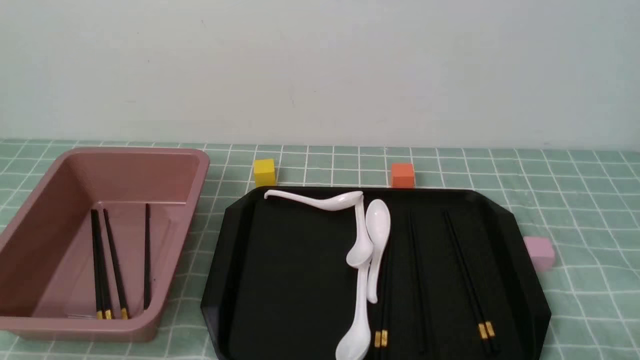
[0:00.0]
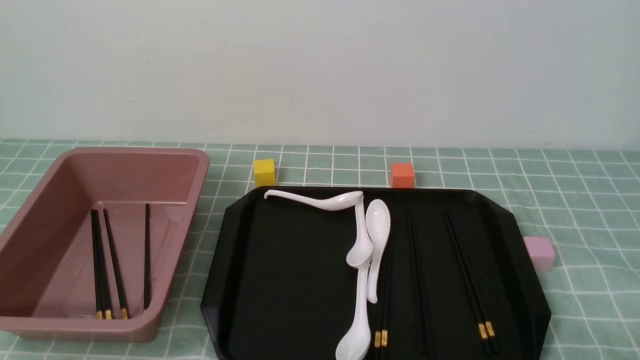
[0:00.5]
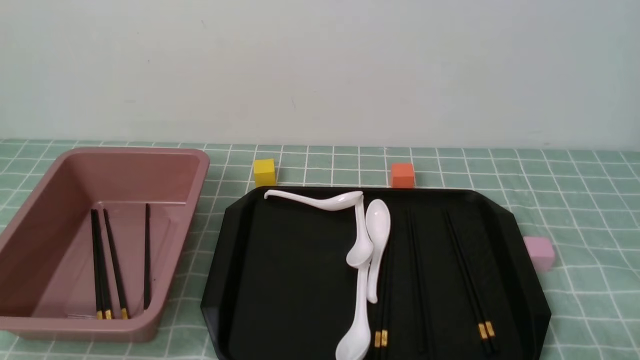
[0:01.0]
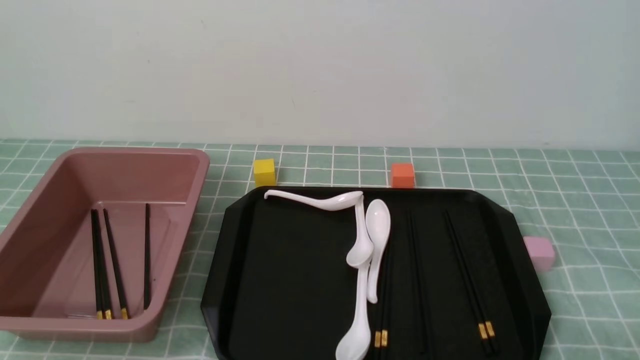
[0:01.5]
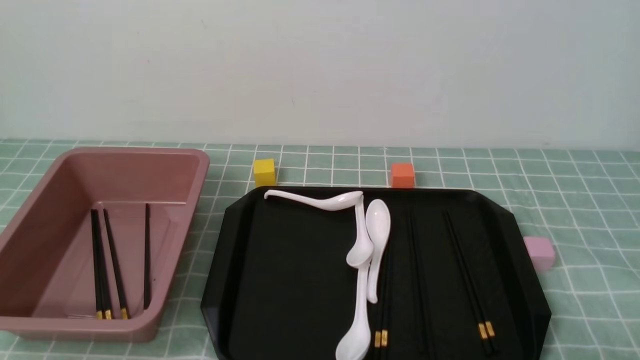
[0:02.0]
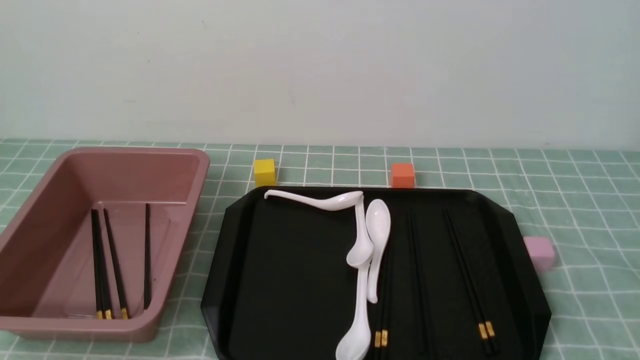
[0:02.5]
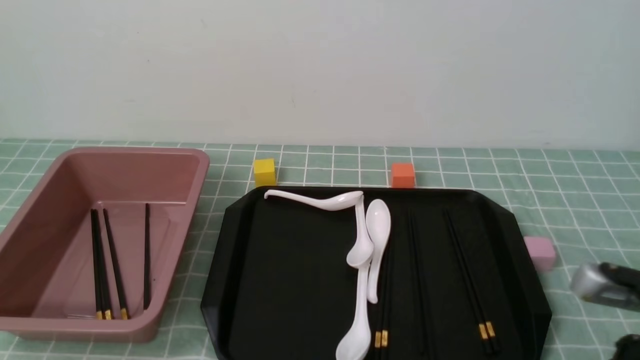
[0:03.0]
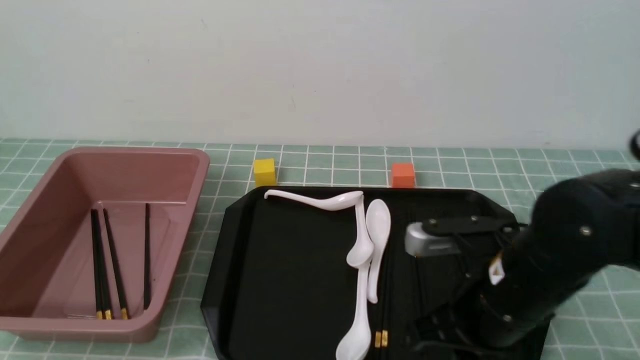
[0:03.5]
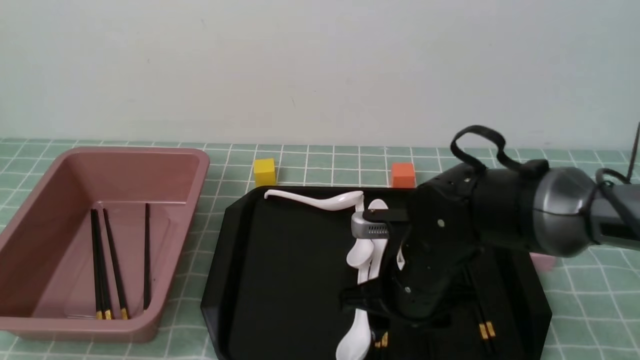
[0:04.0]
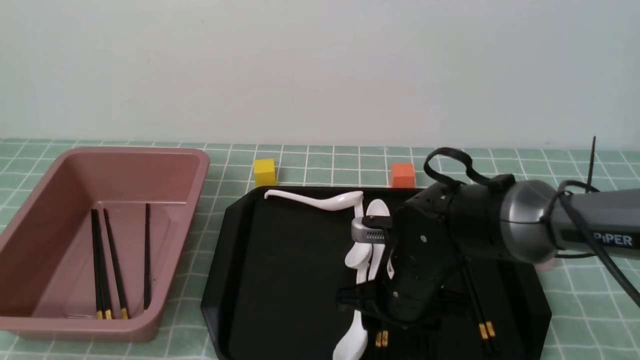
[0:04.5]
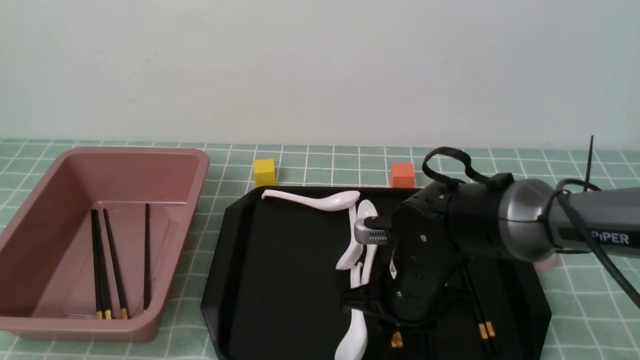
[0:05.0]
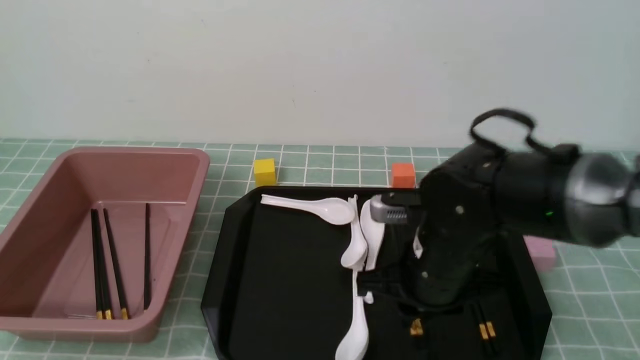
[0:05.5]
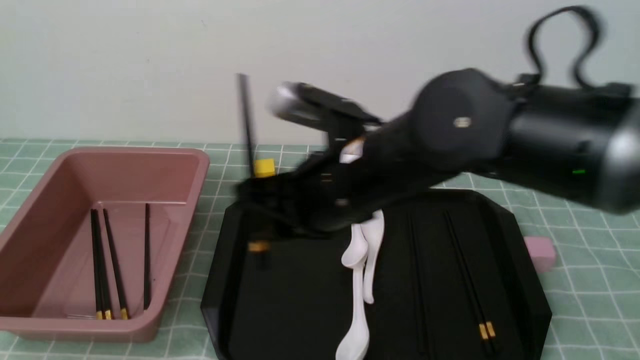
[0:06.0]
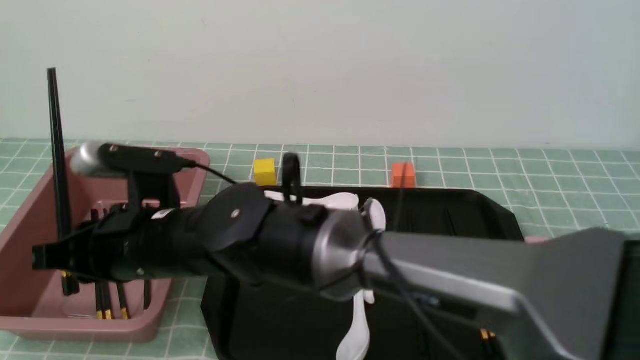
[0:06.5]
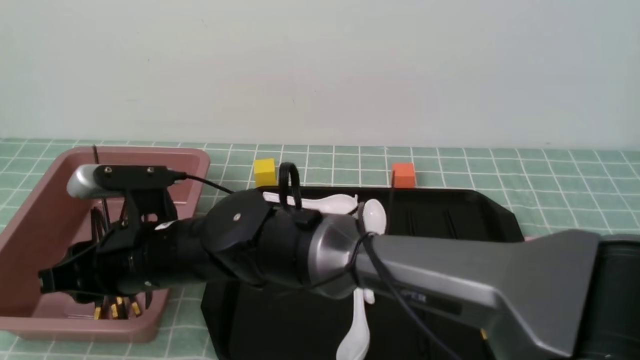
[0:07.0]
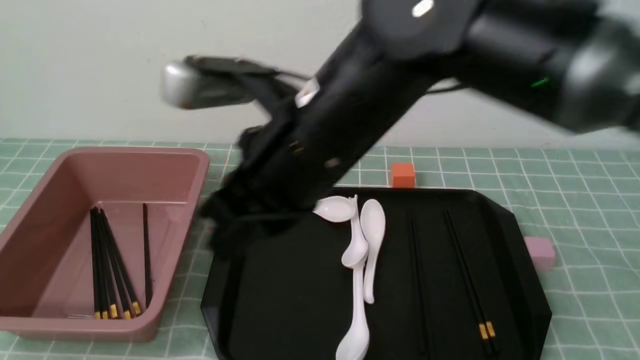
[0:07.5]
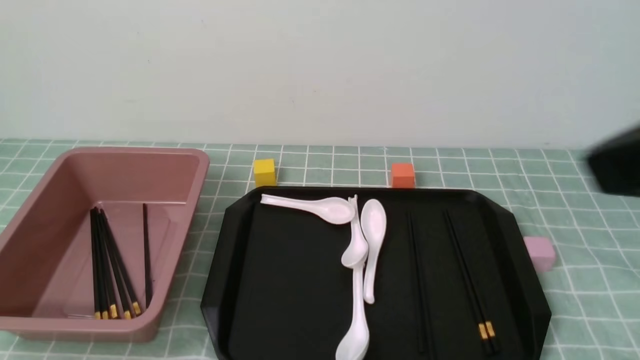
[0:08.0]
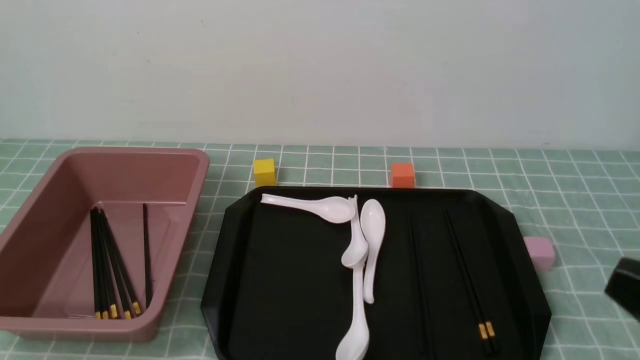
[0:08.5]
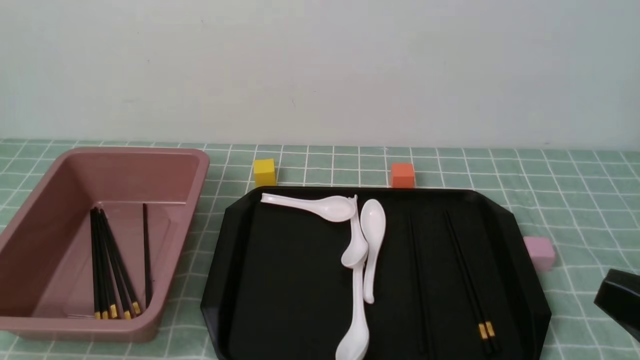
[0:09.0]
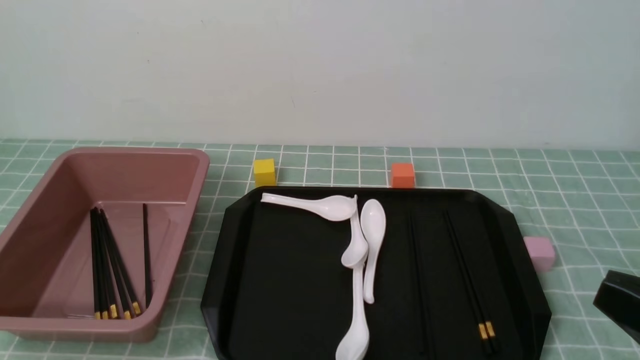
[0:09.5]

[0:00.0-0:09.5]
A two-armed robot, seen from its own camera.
Step, 0:00.0 to 0:05.5: use the right arm to grab a pair of chopsticks.
Step, 0:06.0 to 0:07.0: use the right arm to put the chopsticks into the lunch box.
0:02.0 to 0:04.0: The right gripper heads forward and to the left, covering approximately 30 cm, and opens up.
0:04.0 to 0:05.5: The right gripper closes.
0:05.5 to 0:07.5: The right gripper moves upward and to the left, about 20 cm, and closes.
0:07.5 to 0:09.5: The right gripper goes roughly 30 cm to the right and backward.

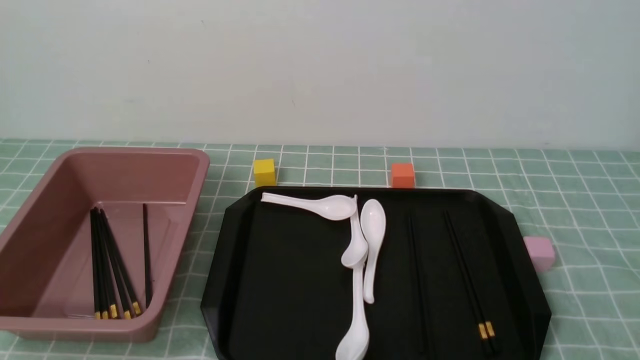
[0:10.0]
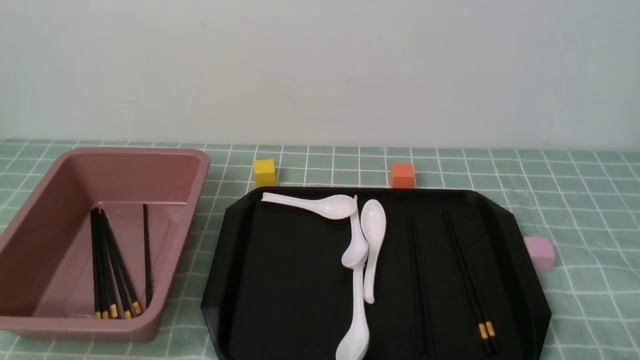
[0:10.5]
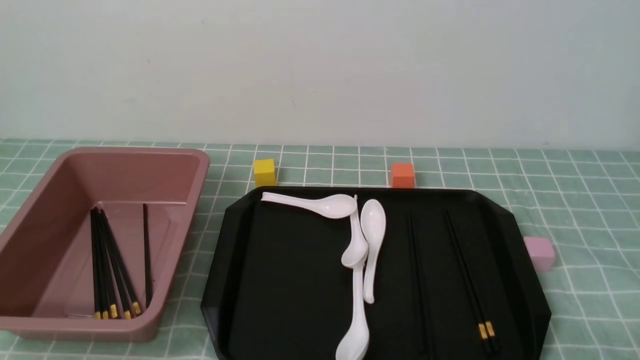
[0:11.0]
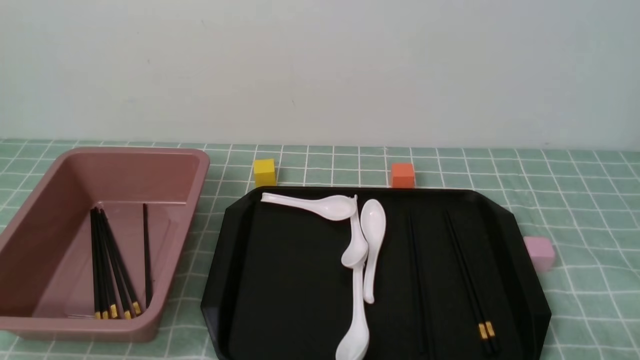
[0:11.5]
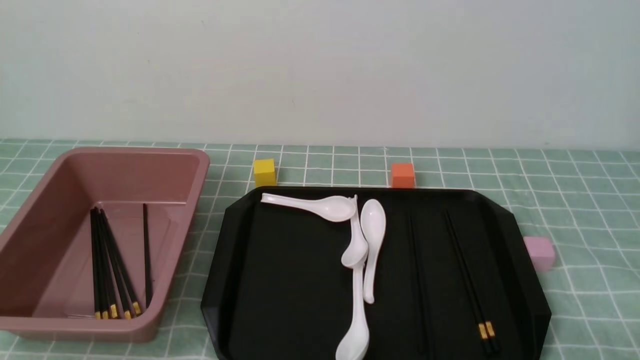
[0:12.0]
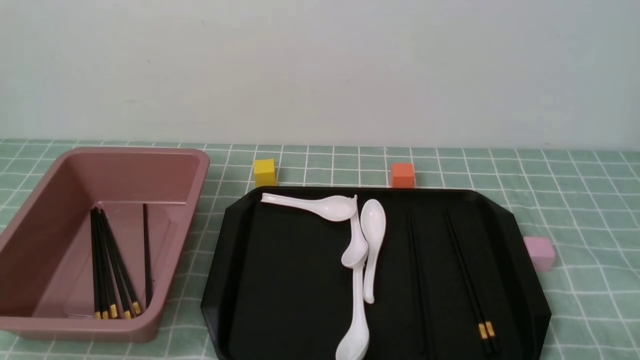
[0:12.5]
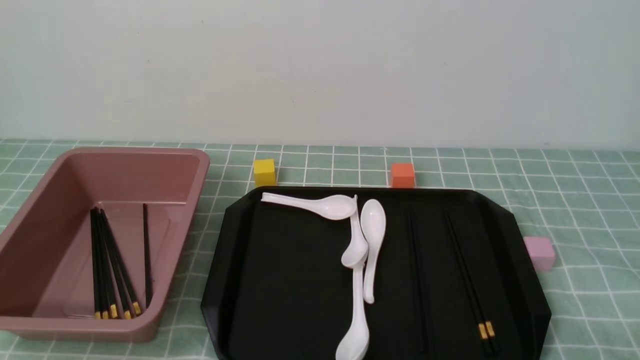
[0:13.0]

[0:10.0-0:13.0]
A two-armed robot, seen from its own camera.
0:11.5 to 0:13.0: Neither gripper changes place.
